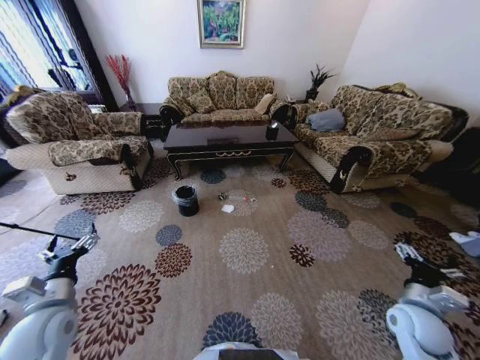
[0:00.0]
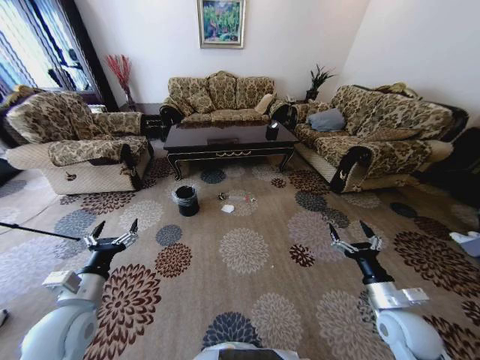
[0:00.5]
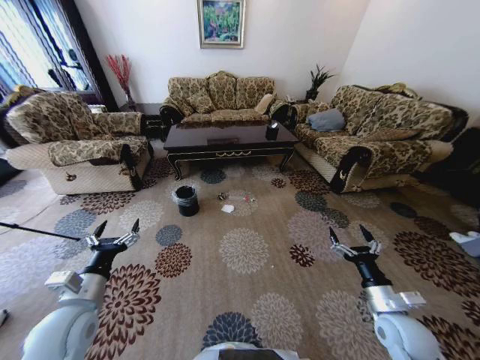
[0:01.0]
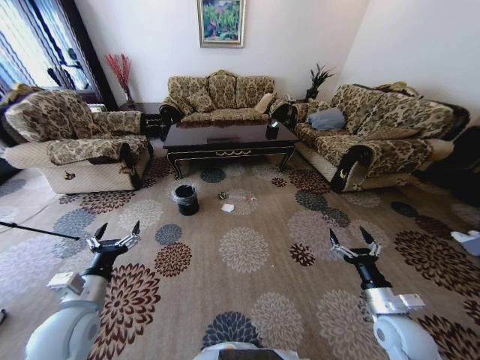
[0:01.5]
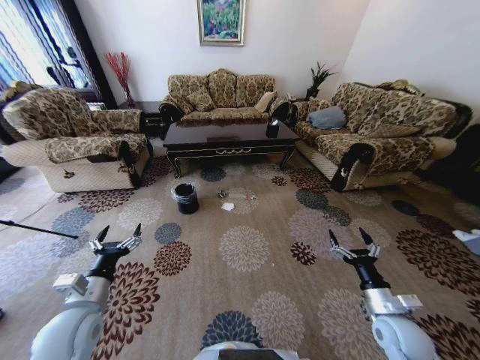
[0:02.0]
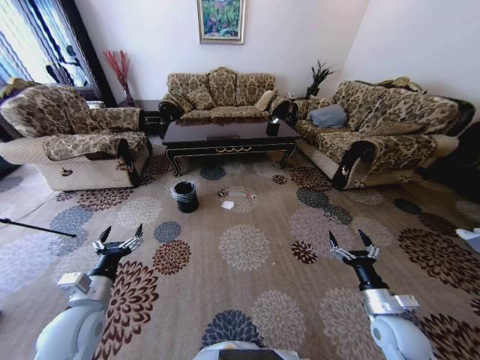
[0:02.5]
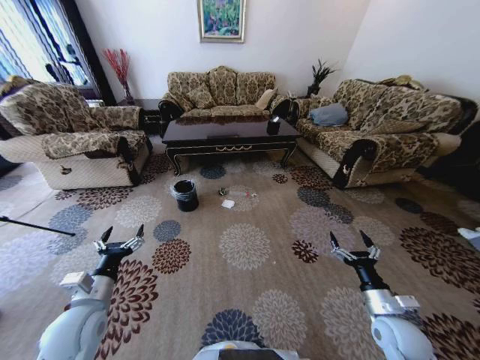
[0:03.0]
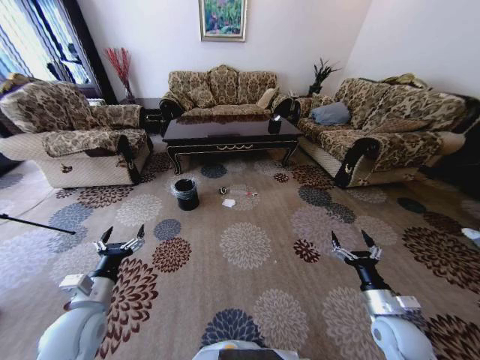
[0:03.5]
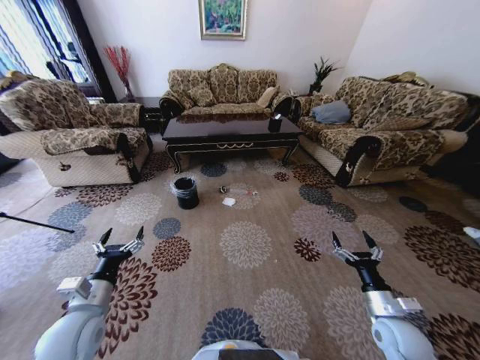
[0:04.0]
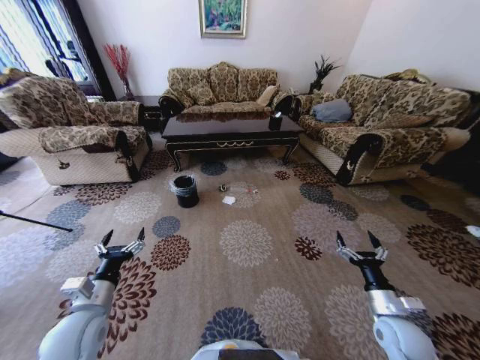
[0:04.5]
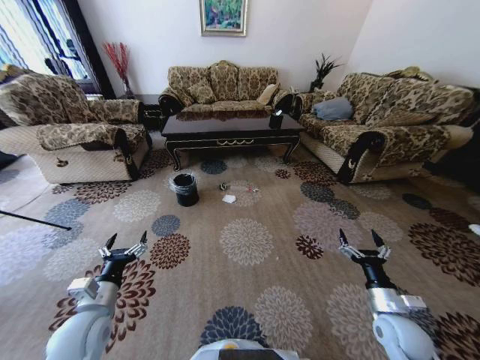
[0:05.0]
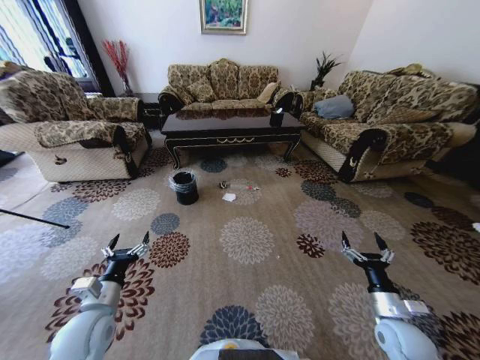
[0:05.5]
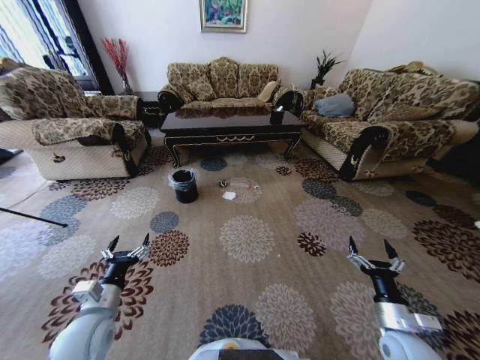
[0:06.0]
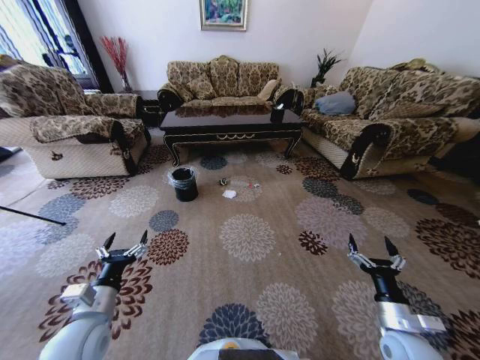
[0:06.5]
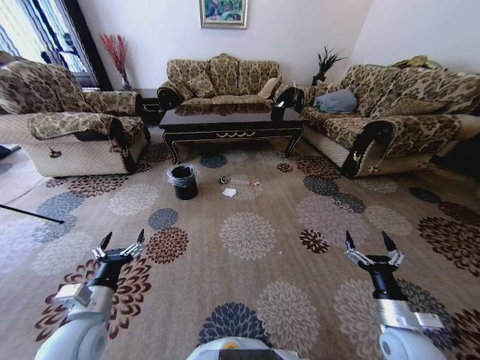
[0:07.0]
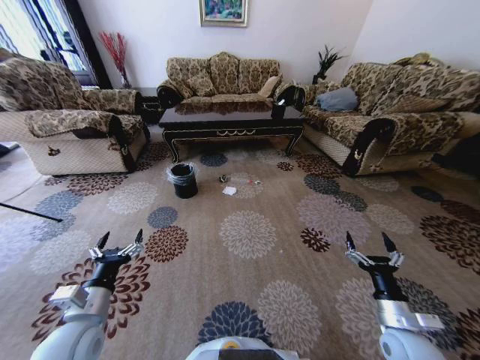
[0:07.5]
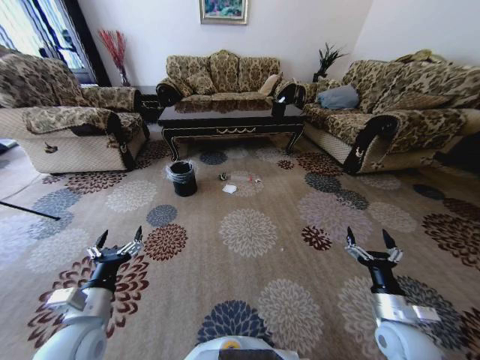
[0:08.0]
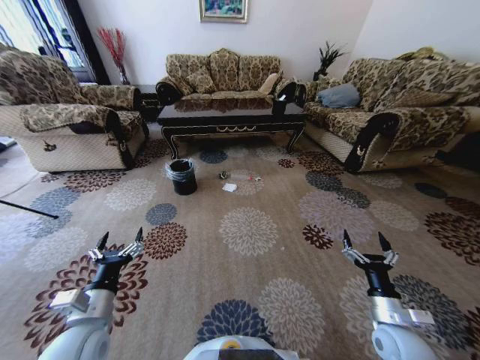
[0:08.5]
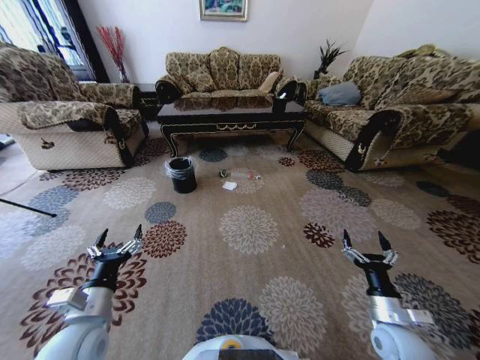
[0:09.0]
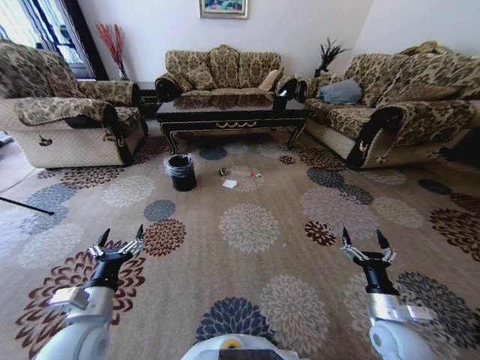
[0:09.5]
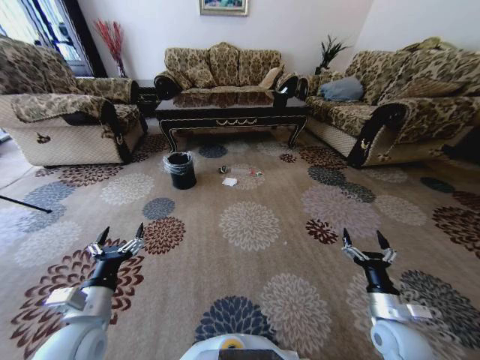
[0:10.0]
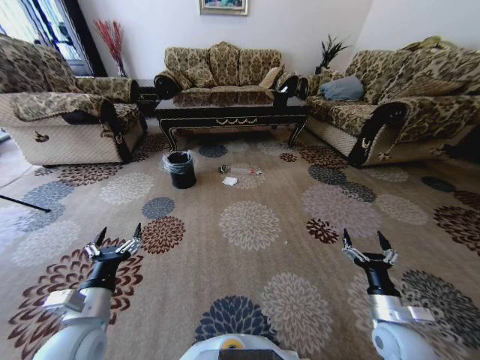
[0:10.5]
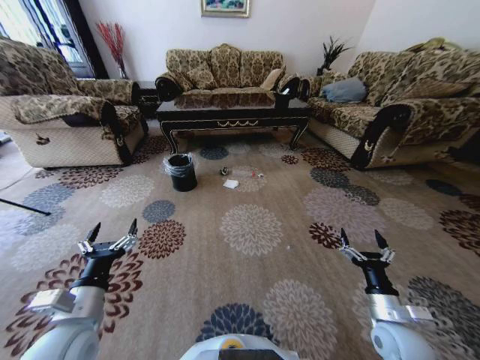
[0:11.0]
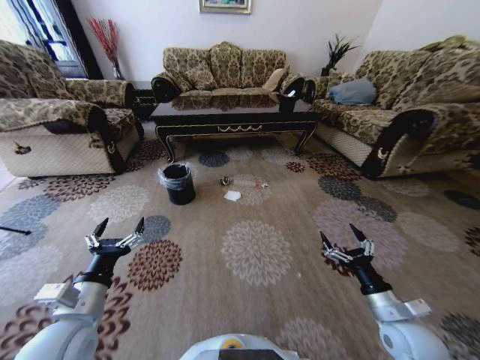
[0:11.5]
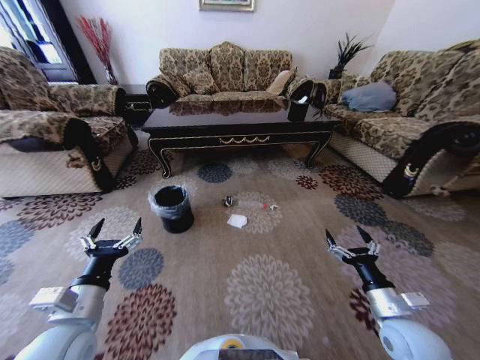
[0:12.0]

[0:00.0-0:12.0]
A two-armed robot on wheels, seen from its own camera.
Task of the whole recording: Move to the front of the table and pick up the trash from the floor, then place it into the trash bin.
0:10.0 to 0:12.0: The right gripper heads upward, covering approximately 5 cm.

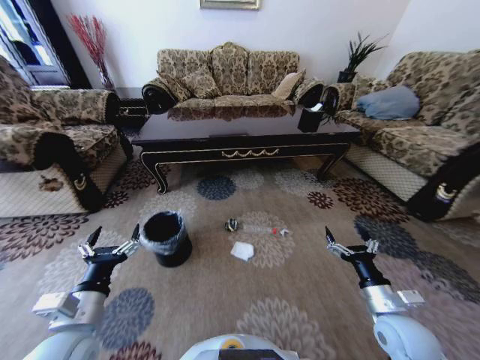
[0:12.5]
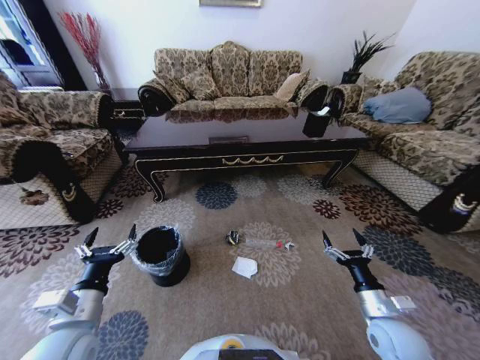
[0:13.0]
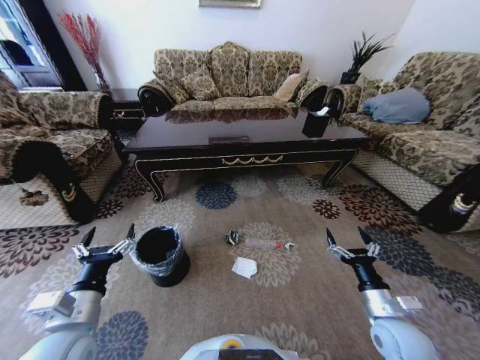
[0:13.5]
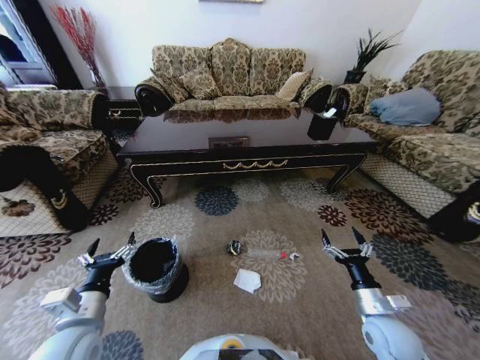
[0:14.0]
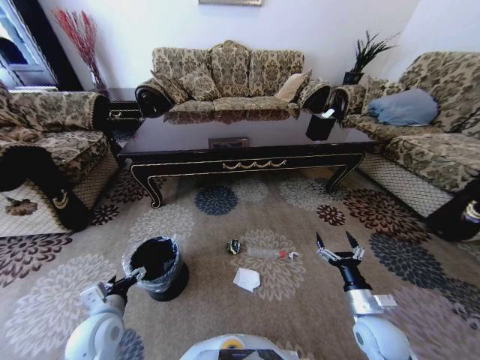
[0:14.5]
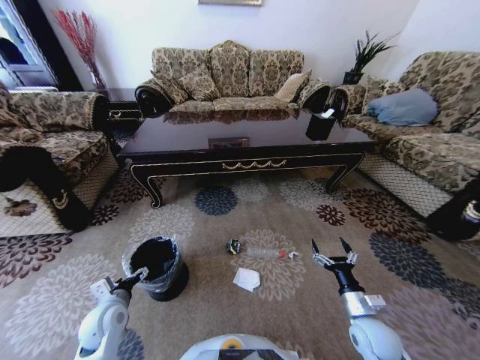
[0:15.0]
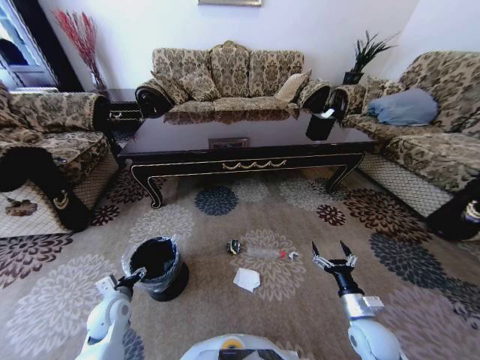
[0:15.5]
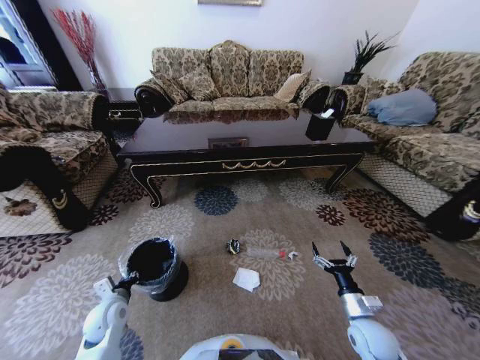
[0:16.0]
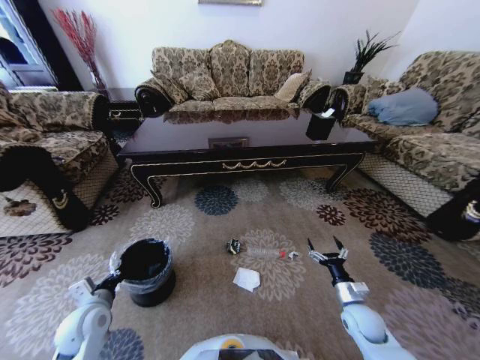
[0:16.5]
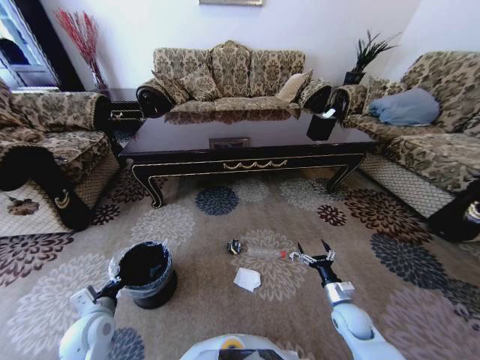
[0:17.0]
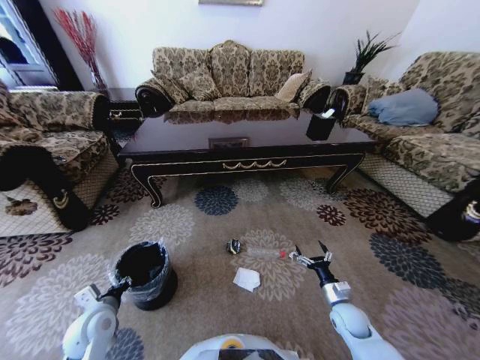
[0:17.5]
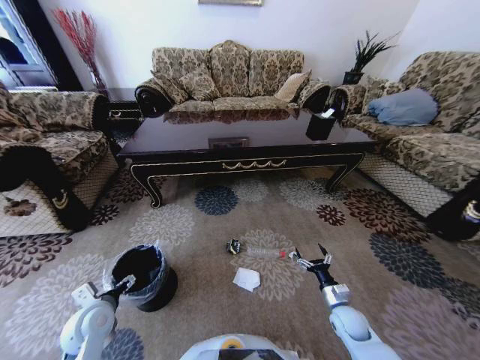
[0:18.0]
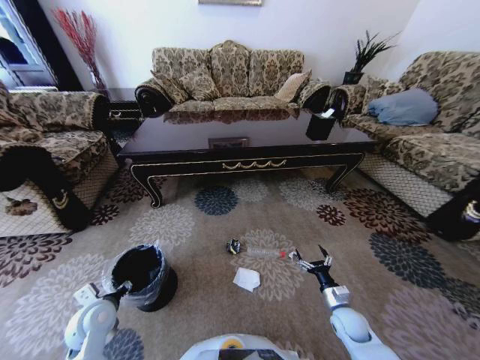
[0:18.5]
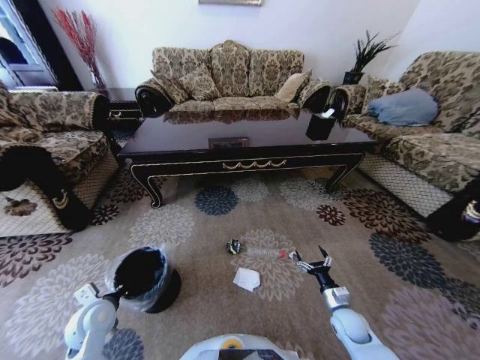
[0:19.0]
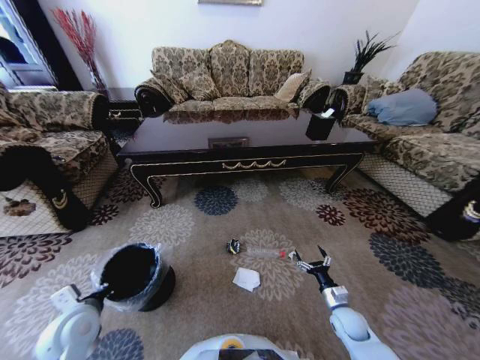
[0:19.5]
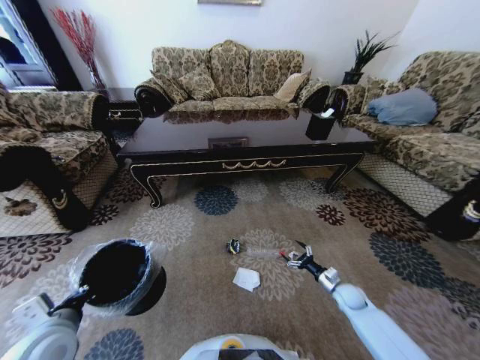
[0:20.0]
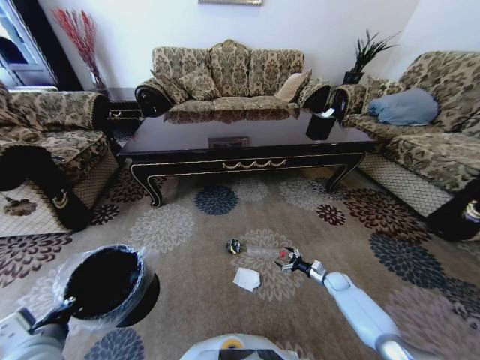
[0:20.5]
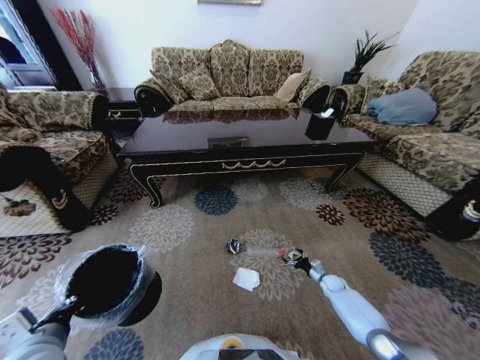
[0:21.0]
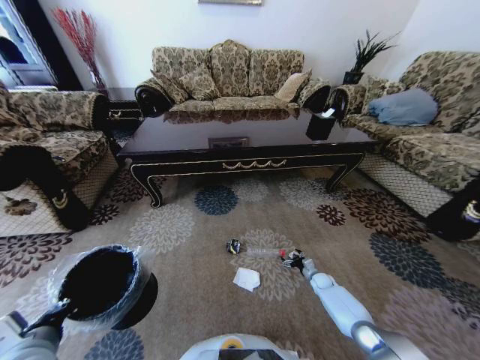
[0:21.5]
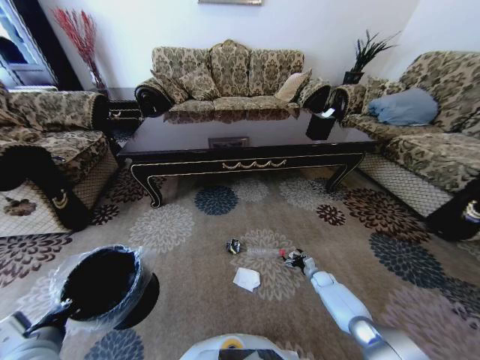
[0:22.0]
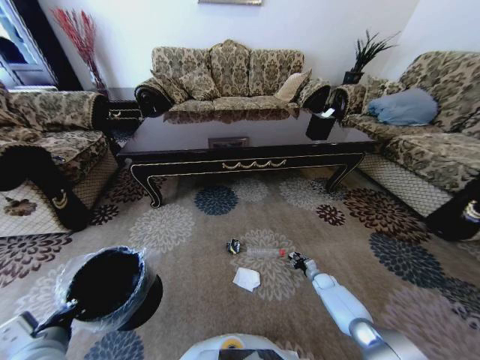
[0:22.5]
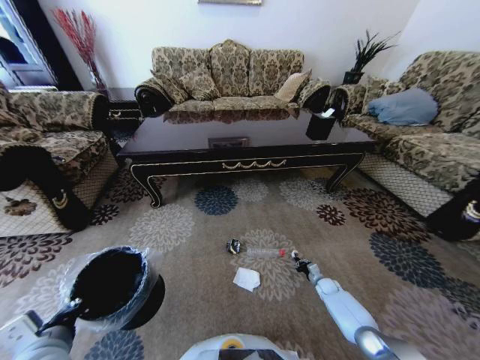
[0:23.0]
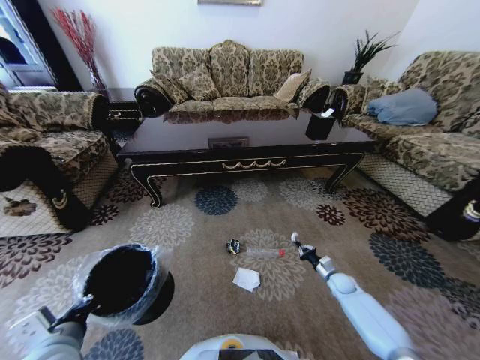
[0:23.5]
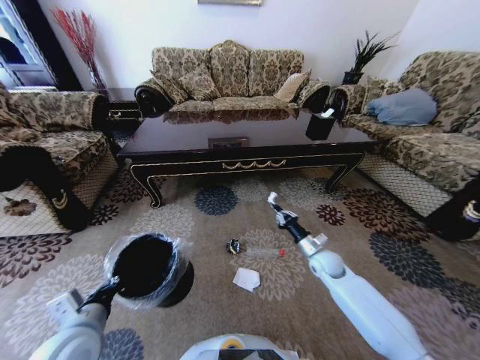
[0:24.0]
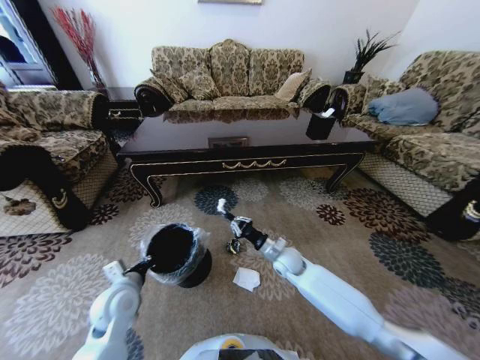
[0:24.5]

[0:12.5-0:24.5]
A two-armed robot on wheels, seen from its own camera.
Task of the whole recording: Move to the front of the table and pick up the trash from the floor, then place it into the trash bin.
0:12.5 to 0:14.5: The right gripper changes place by some 5 cm. Meanwhile the left gripper goes approximately 10 cm downward.
0:14.5 to 0:16.5: The left gripper closes up; the right gripper moves downward, some 5 cm.
0:16.5 to 0:18.5: The right gripper goes about 5 cm downward. Meanwhile the left gripper opens its fingers.
0:18.5 to 0:20.5: The left gripper travels upward and backward by roughly 15 cm, and closes. The right gripper travels forward, to the right and downward by some 15 cm.
0:20.5 to 0:22.5: The right gripper goes about 5 cm downward, and closes.
0:22.5 to 0:24.5: The right gripper heads to the left and upward, covering roughly 30 cm, and closes. Meanwhile the left gripper travels forward and downward by about 15 cm.

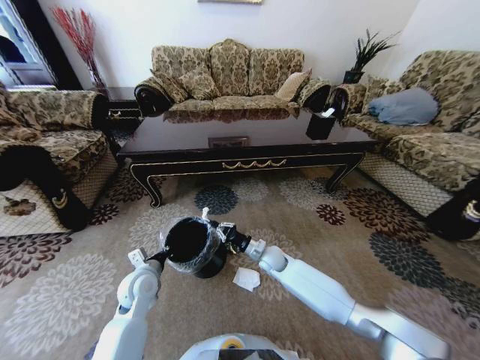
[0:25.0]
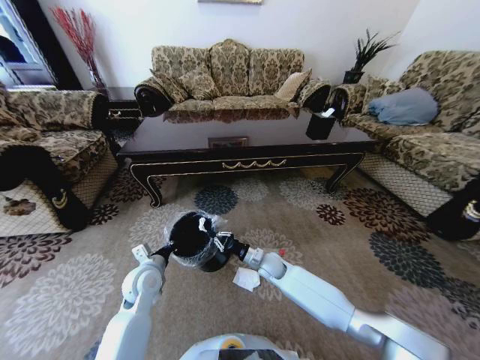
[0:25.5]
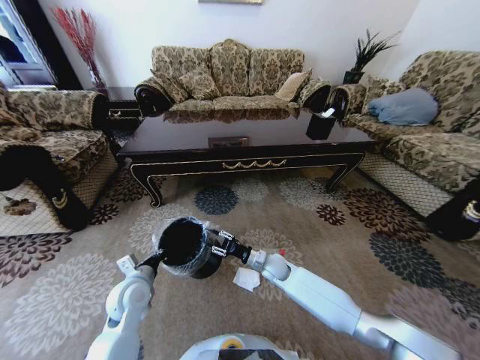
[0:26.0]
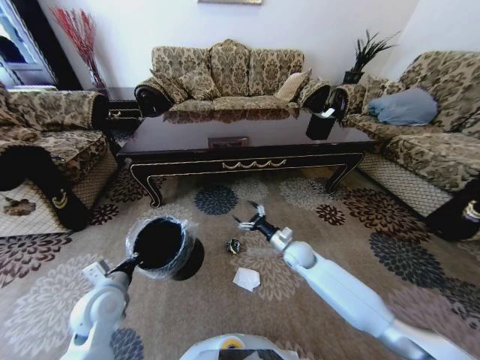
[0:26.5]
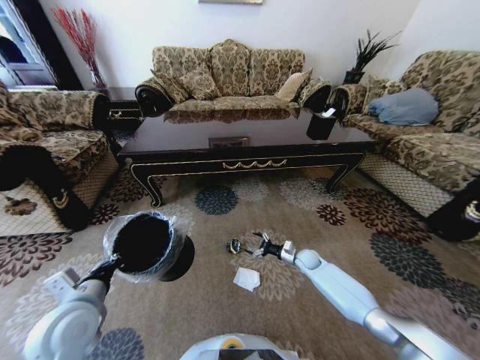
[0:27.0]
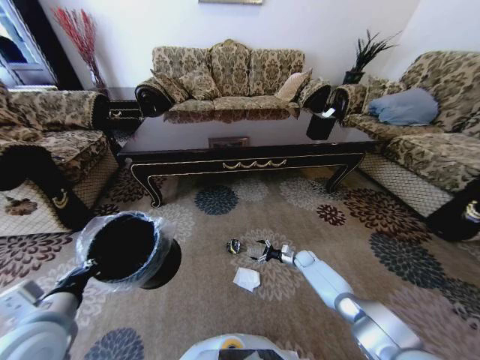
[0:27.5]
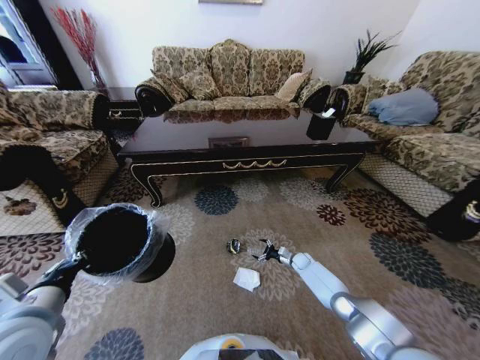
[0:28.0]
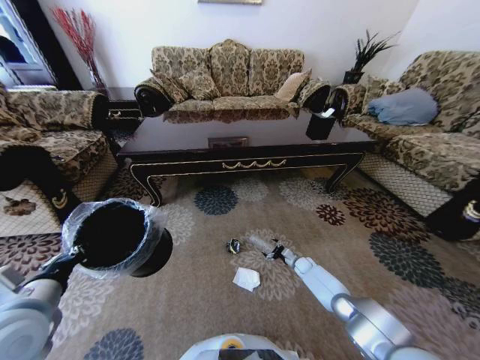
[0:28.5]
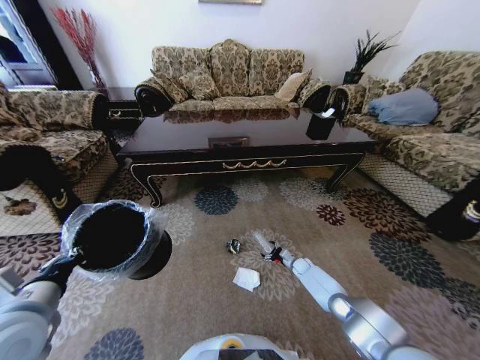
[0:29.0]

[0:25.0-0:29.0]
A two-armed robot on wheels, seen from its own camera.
Task of the whole recording: Move to the front of the table and pick up the trash from the floor, then place it into the trash bin.
0:25.0 to 0:27.0: The left gripper goes about 15 cm backward, upward and to the left. Meanwhile the right gripper is displaced to the right and downward by about 20 cm, and opens up.
0:27.0 to 0:29.0: The right gripper shifts roughly 10 cm downward; the left gripper shifts about 5 cm upward.
